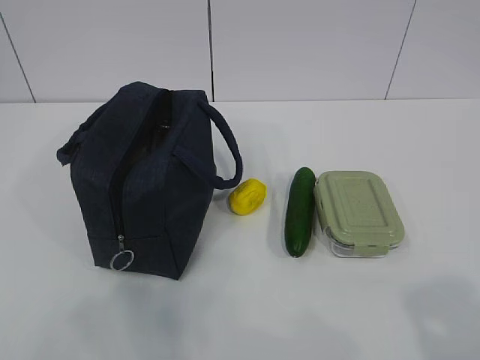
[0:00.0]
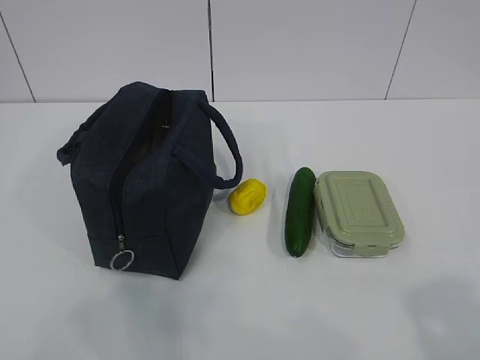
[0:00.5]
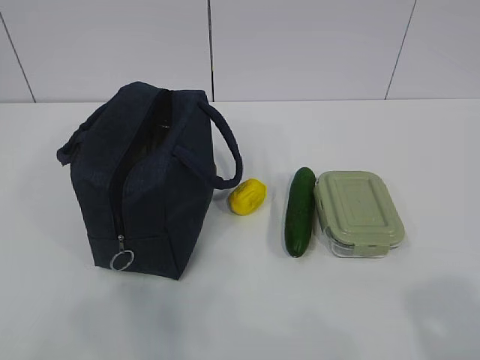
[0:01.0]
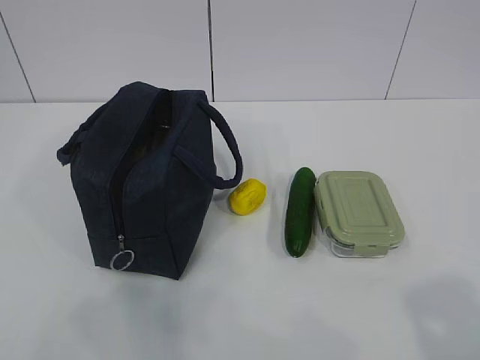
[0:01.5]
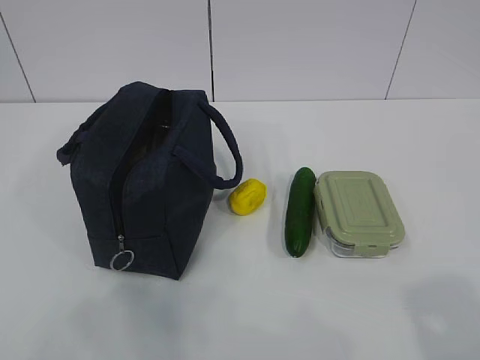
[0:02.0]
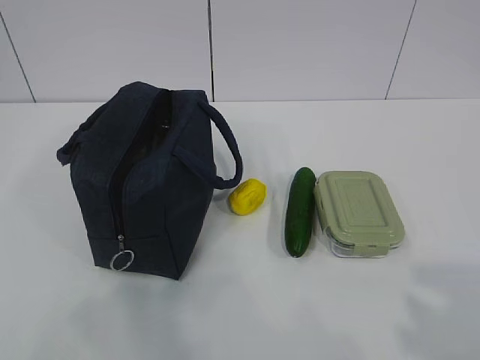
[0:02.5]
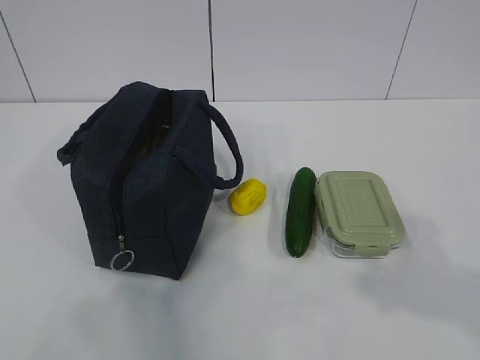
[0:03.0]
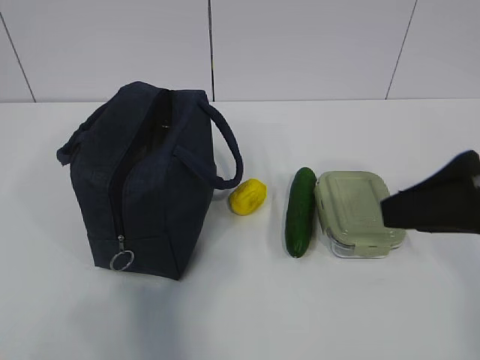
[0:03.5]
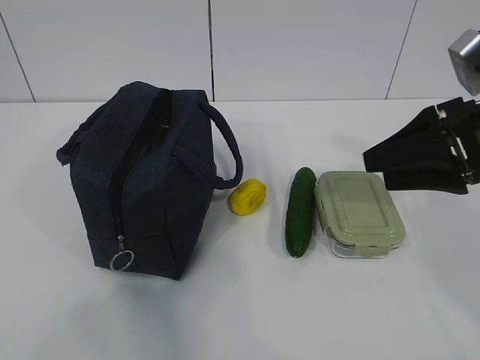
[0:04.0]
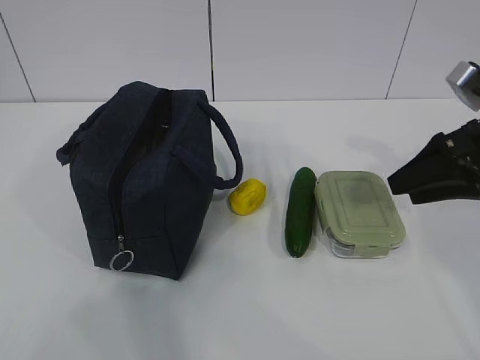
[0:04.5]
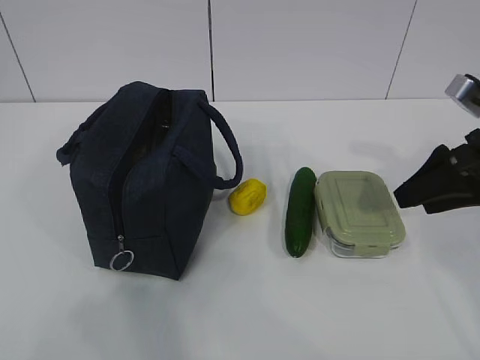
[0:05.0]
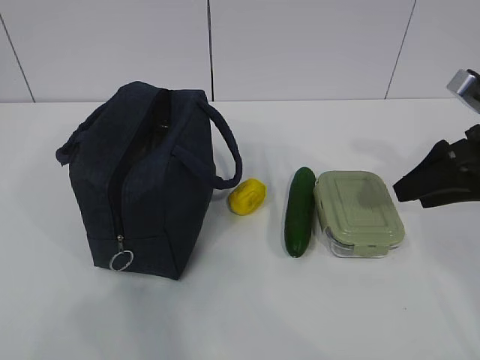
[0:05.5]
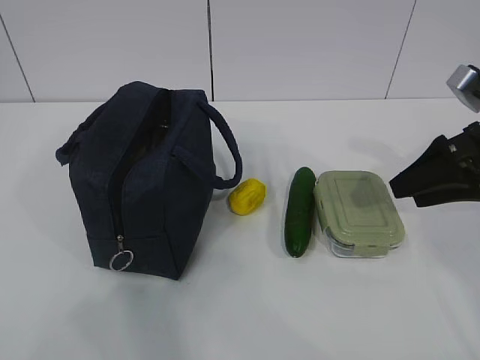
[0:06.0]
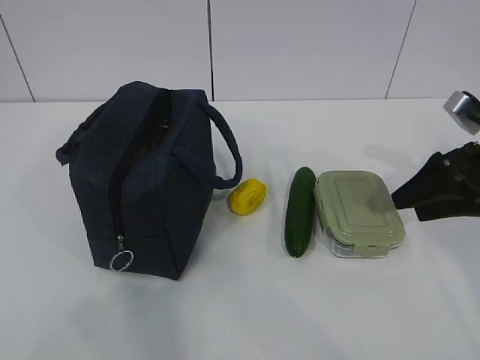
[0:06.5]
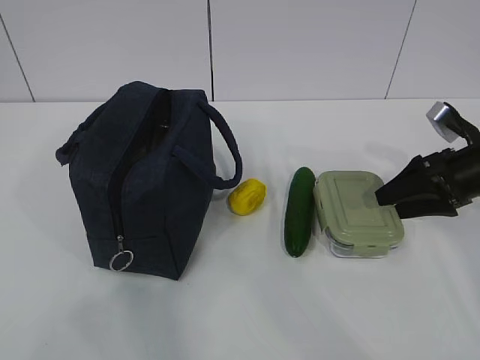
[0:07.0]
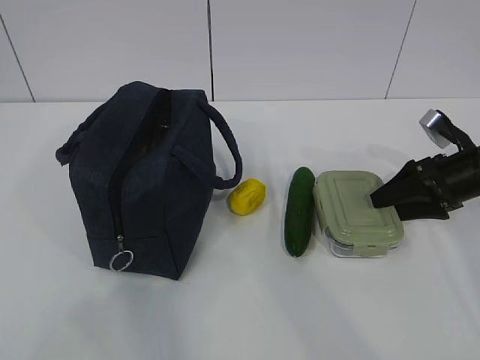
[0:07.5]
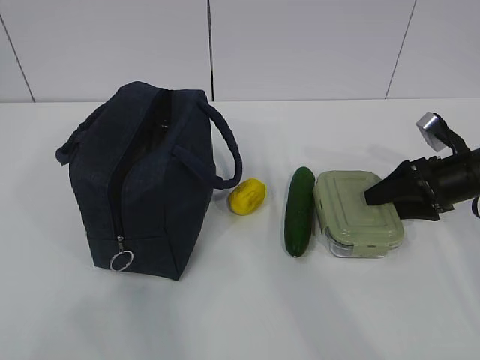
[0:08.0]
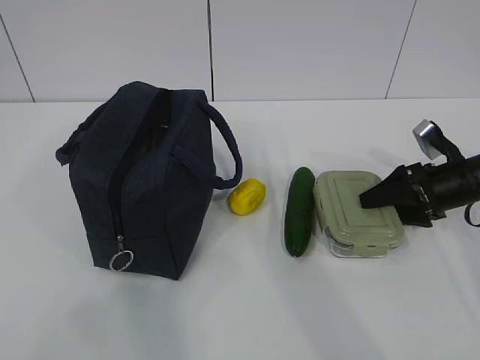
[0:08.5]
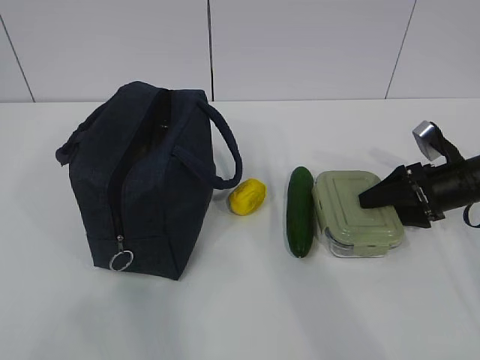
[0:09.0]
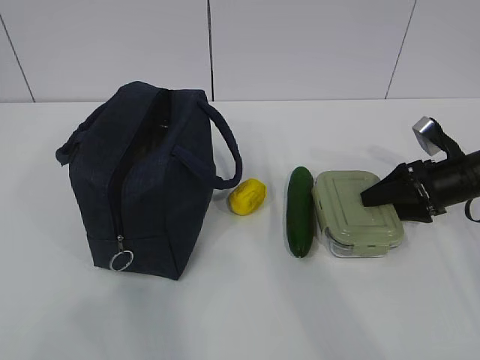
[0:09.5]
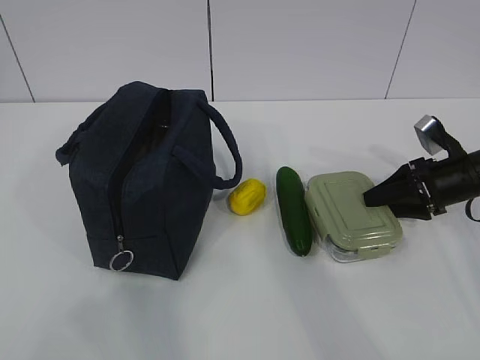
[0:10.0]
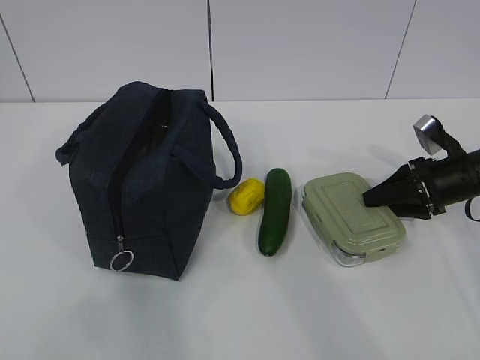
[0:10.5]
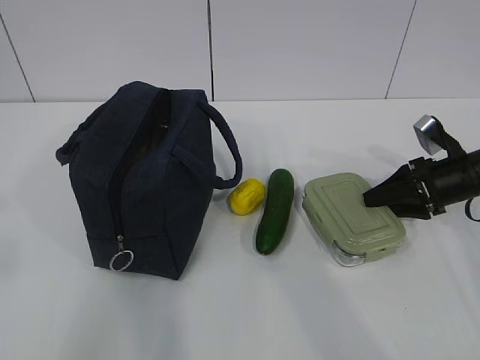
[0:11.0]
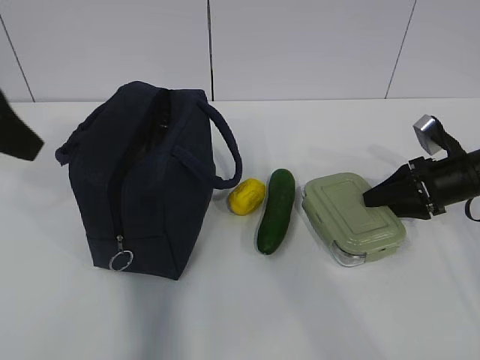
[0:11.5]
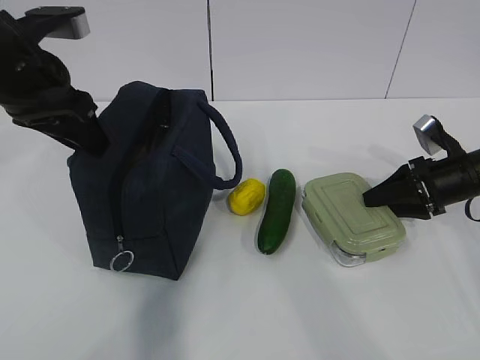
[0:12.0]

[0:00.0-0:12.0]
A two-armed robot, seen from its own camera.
Step, 0:00.0 to 0:11.5: Grab the lunch box with your right hand.
0:02.0 to 0:04.0: The right gripper goes about 30 cm forward.
0:04.0 to 0:06.0: The right gripper ends up some 5 cm from where it was.
0:06.0 to 0:08.0: The right gripper travels downward and forward by about 15 cm.
0:08.0 to 0:10.0: The grippers make only small movements.
0:10.0 to 0:12.0: The left gripper goes roughly 35 cm forward.

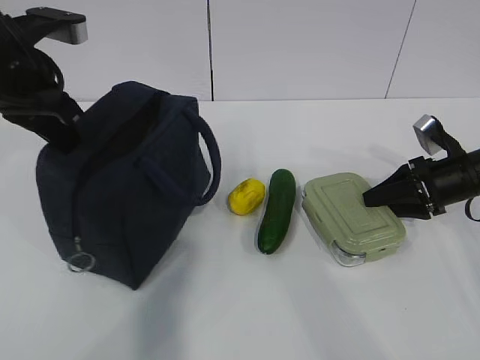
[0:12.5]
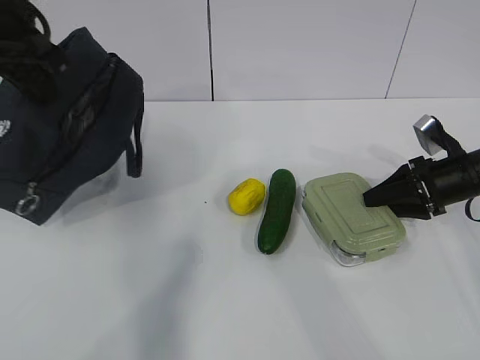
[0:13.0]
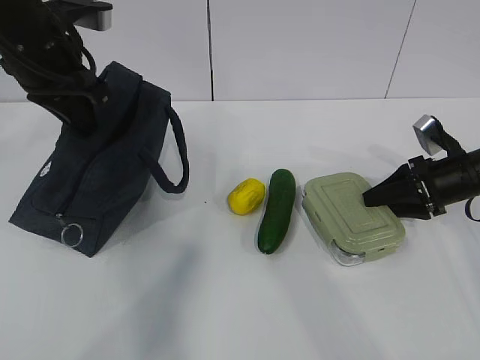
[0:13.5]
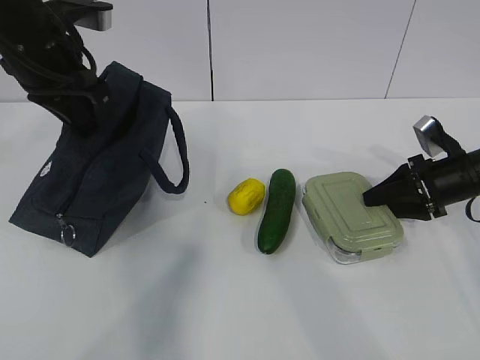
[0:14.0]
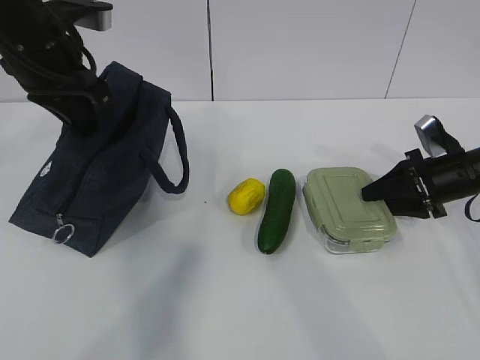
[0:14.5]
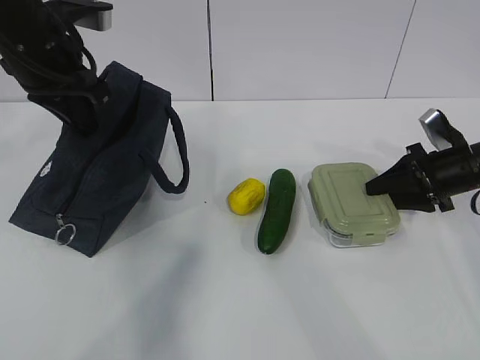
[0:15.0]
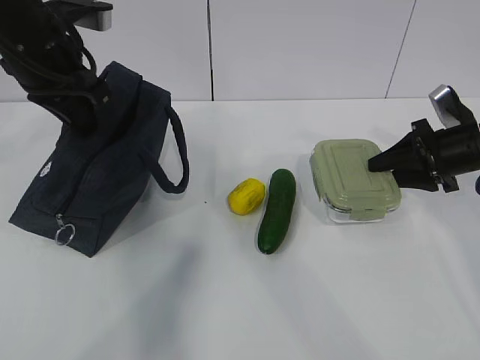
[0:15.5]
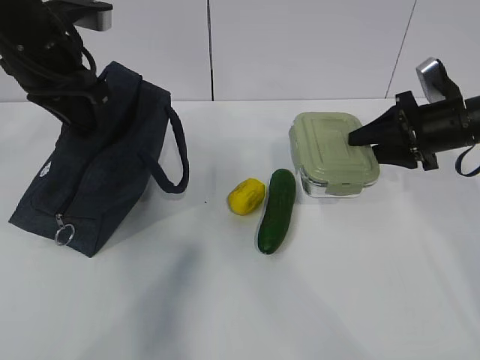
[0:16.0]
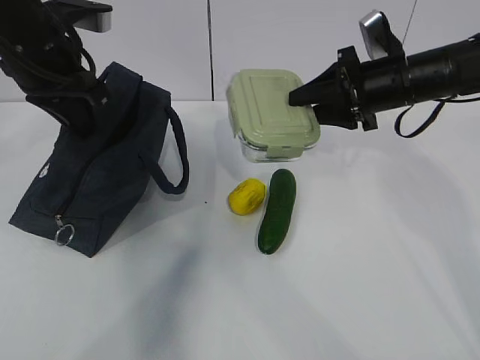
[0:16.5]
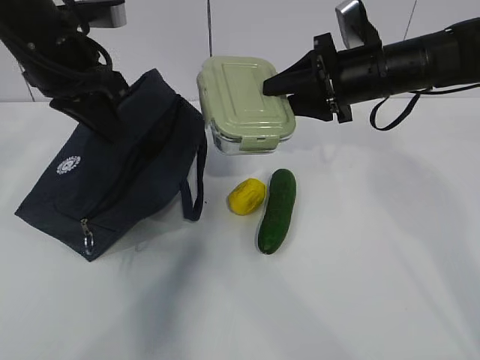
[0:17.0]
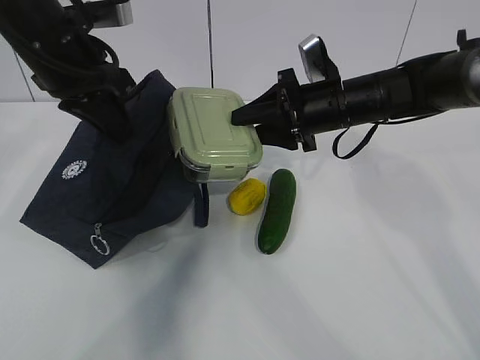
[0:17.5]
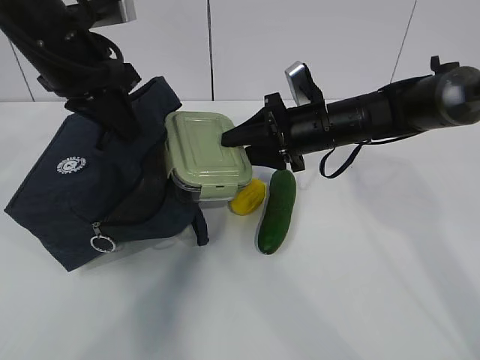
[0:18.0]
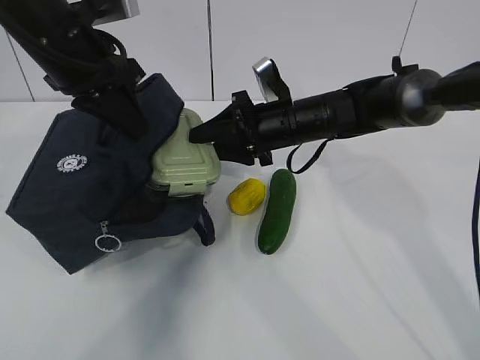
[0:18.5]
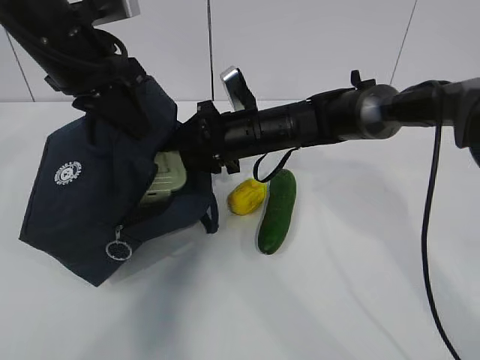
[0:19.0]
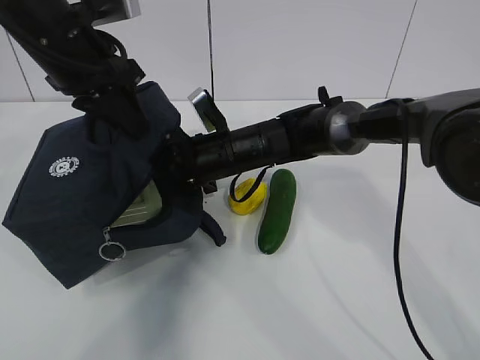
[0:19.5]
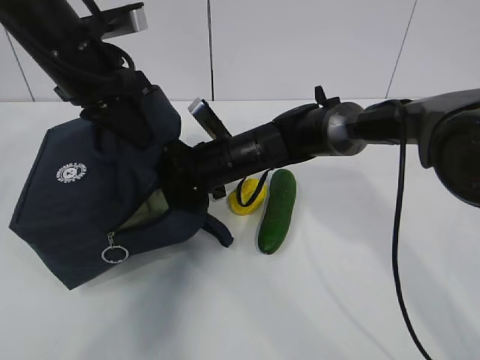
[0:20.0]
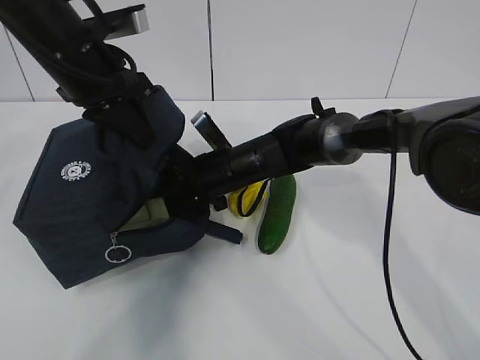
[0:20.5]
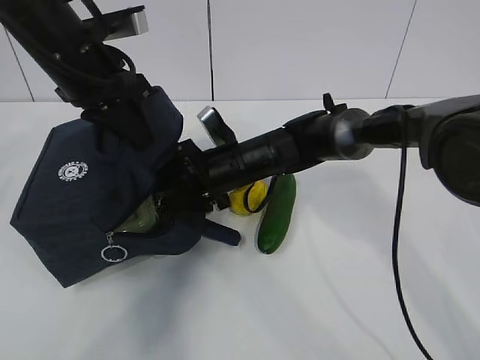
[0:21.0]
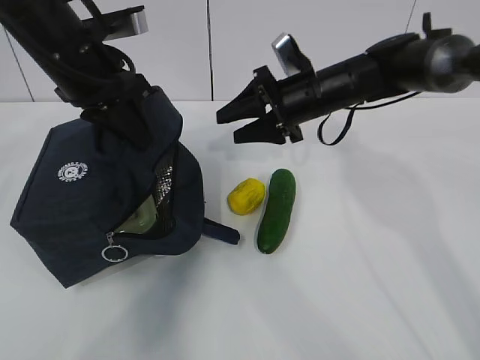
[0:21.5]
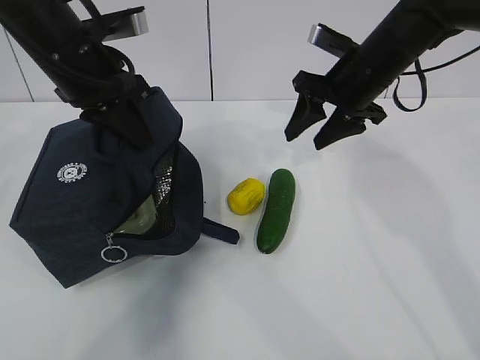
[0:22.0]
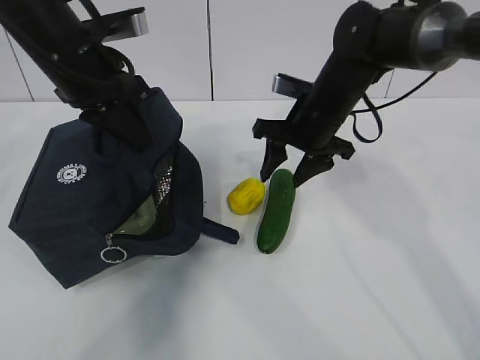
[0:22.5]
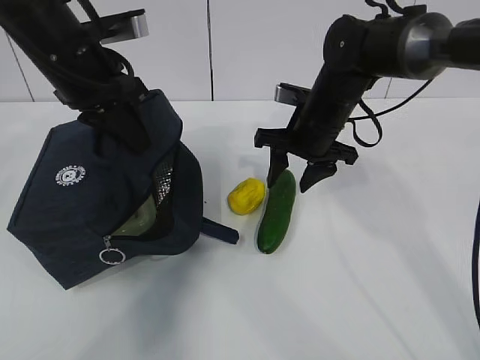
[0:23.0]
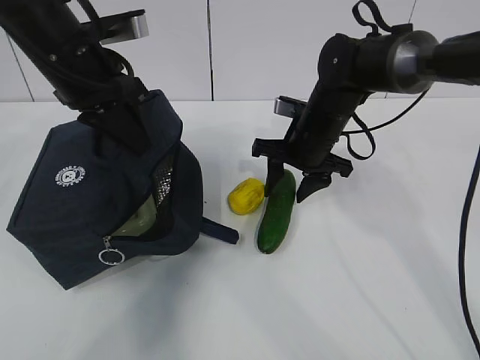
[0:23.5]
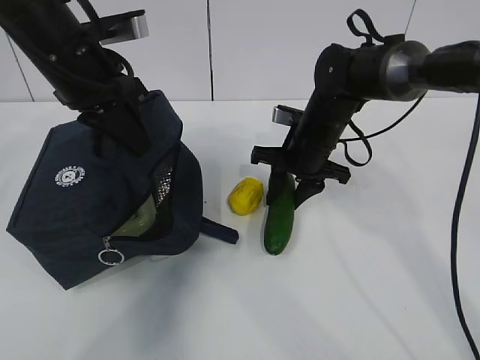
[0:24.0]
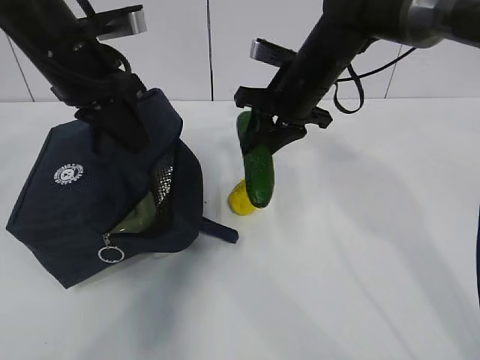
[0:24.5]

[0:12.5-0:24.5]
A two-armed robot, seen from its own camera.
Step, 0:12.5 to 0:14.0: Grab the lunch bag with your left hand.
Step, 0:14.5 to 0:17.0: Place it into the bag with your right hand.
Step, 0:17.5 to 0:19.5: Grab the cucumber with your right hand.
Step, 0:20.0 to 0:21.5: Place it into the bag with your right hand.
Step, 0:22.0 to 0:24.0: Grab the lemon with your right hand.
0:12.5 to 0:14.5: There are only small adjustments of the grippers.
0:14.5 to 0:16.5: The right gripper goes approximately 15 cm upward and to the left.
0:16.5 to 0:18.5: The right gripper goes some 15 cm to the left and downward.
0:18.5 to 0:20.5: The right gripper moves to the left and downward, some 10 cm.
0:20.5 to 0:22.5: The right gripper travels to the right and upward by approximately 15 cm.
0:22.5 to 0:24.5: The grippers stay close to where they were, moving slightly.

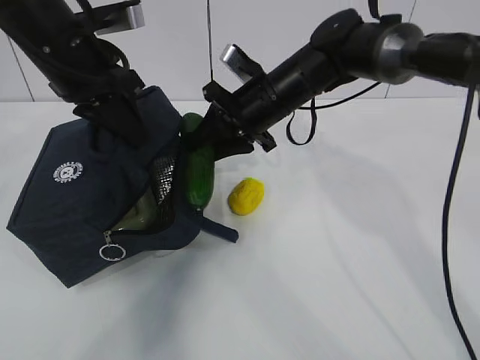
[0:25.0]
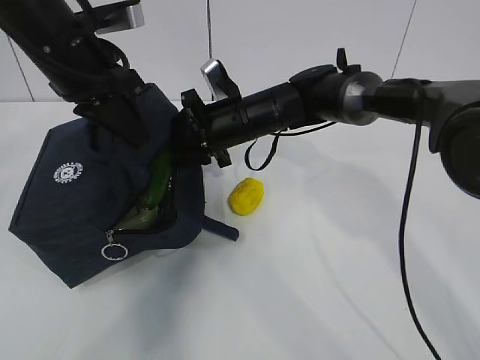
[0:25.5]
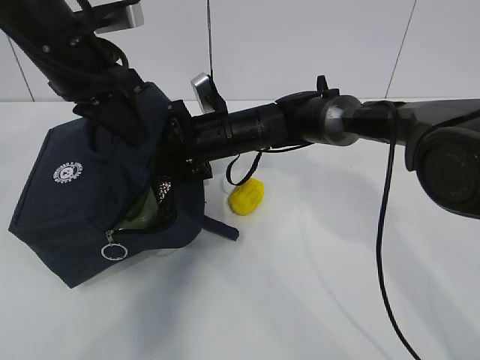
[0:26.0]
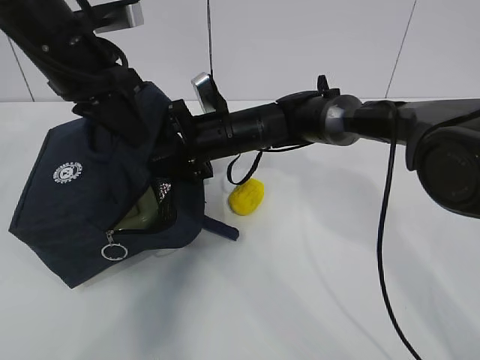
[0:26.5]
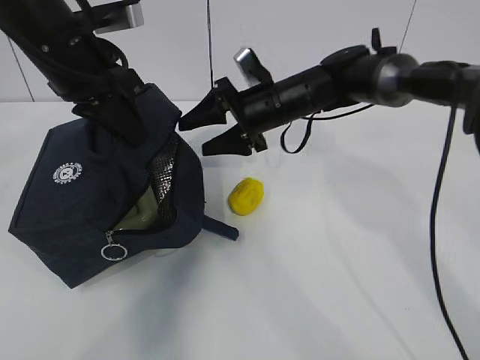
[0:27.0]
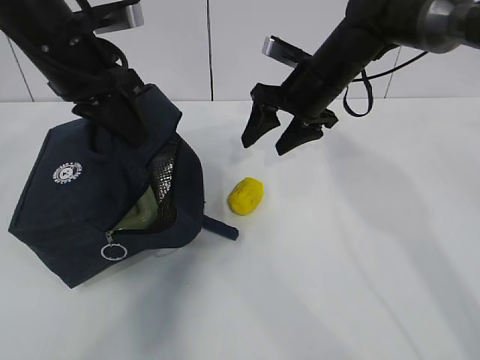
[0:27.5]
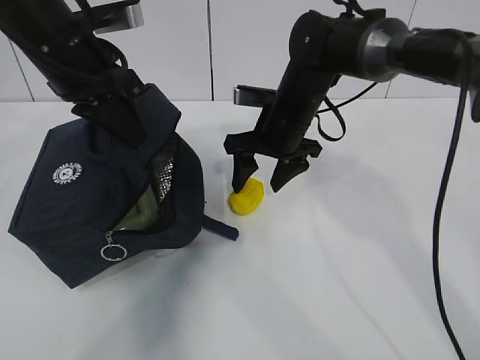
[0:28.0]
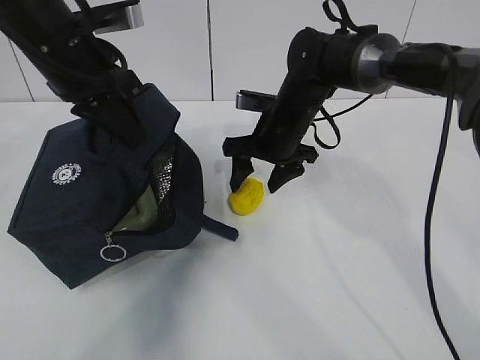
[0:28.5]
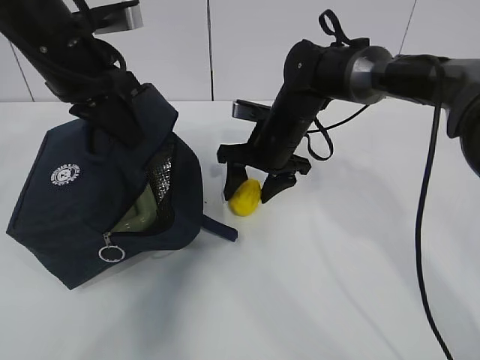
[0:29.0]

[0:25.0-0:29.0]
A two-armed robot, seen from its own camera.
Step, 0:26.5 to 0:27.5: Grab the lunch bag with your right hand.
0:25.0 to 0:27.0: The right gripper opens up.
